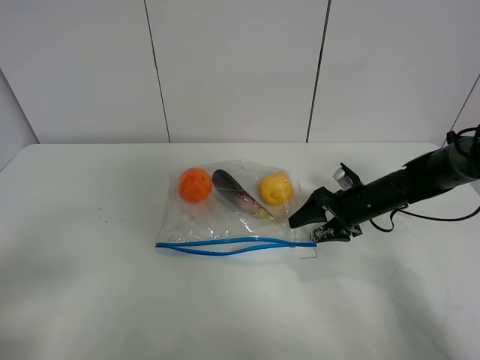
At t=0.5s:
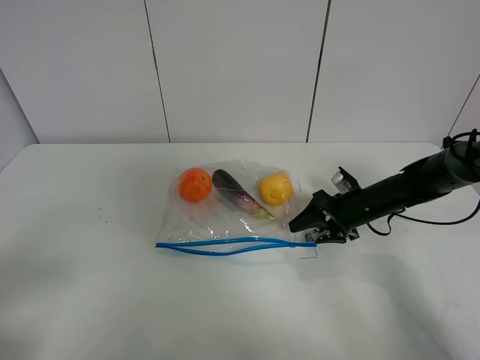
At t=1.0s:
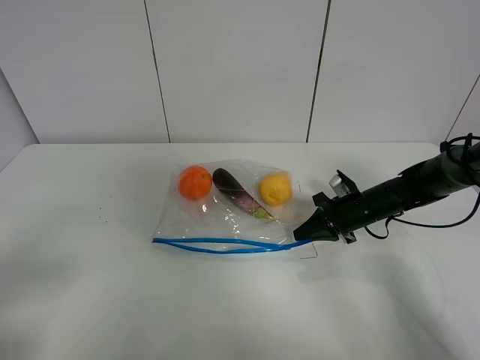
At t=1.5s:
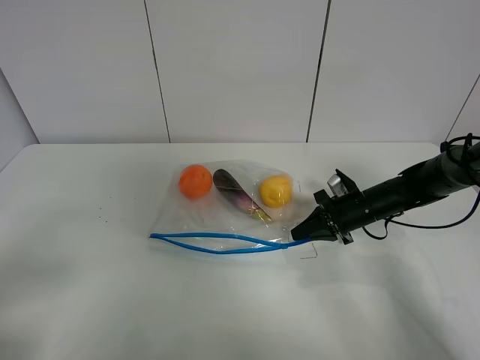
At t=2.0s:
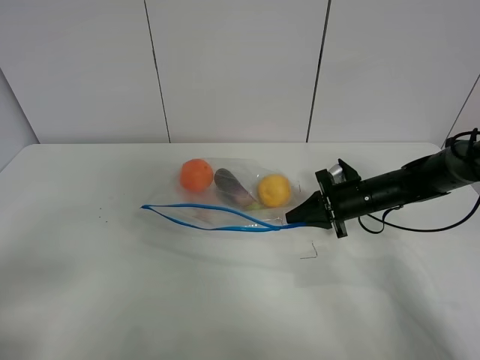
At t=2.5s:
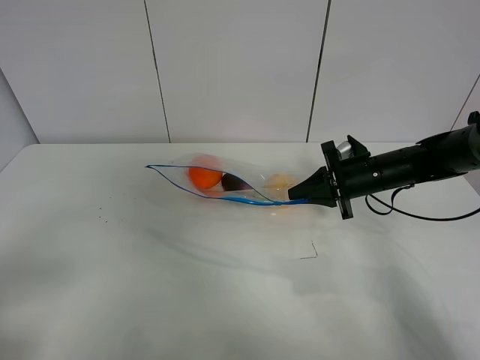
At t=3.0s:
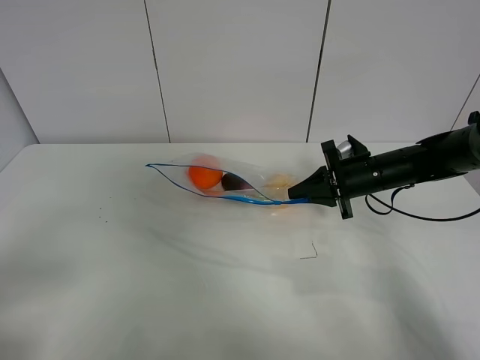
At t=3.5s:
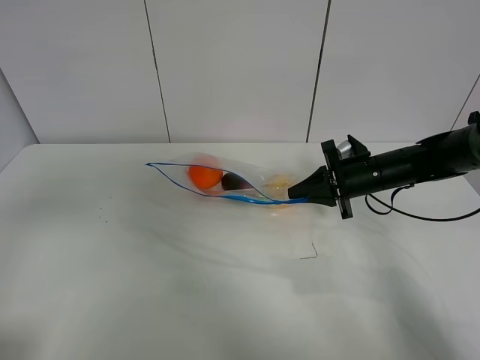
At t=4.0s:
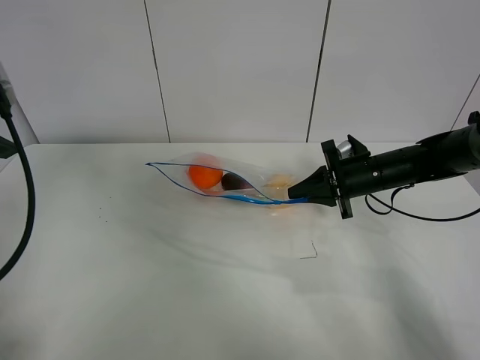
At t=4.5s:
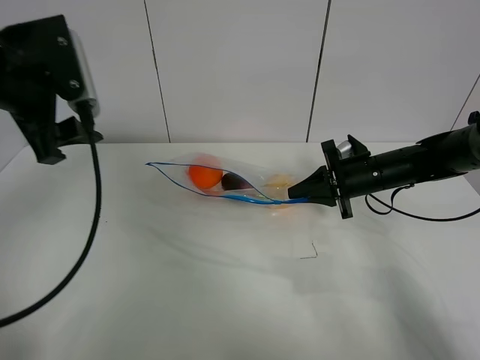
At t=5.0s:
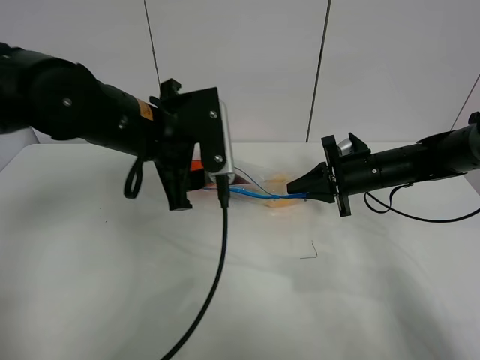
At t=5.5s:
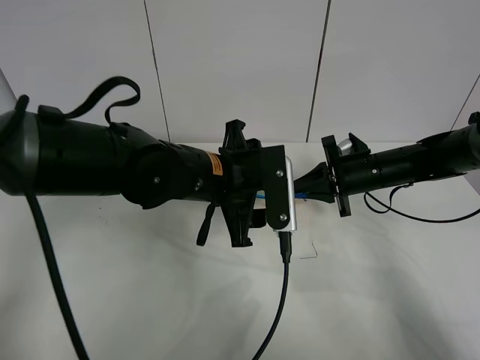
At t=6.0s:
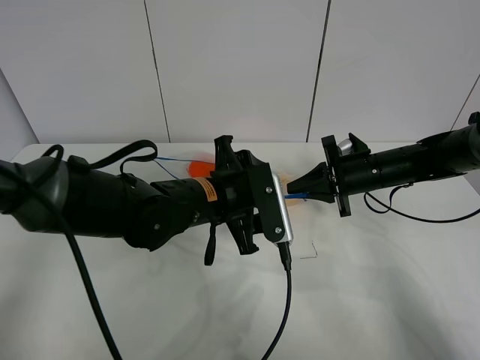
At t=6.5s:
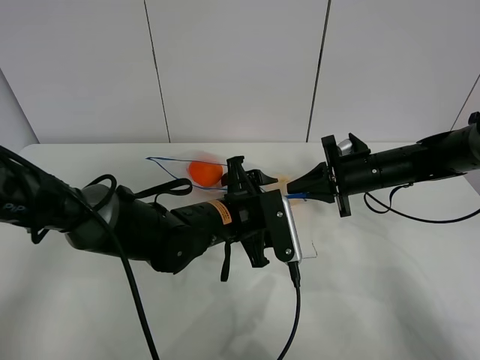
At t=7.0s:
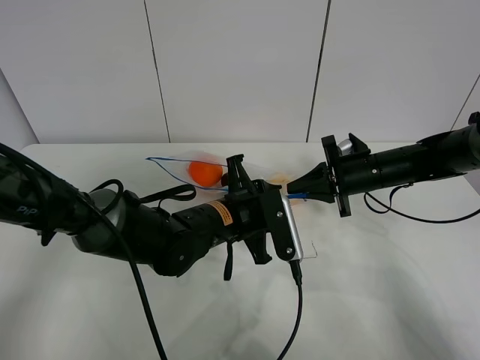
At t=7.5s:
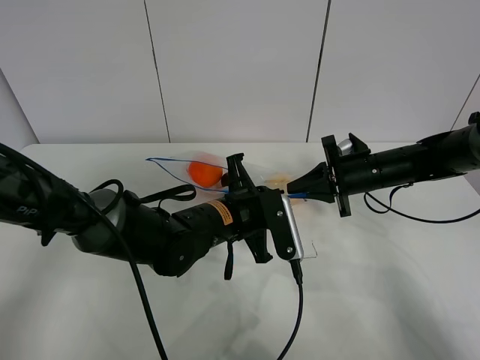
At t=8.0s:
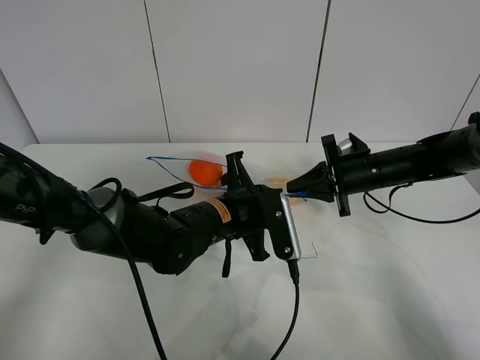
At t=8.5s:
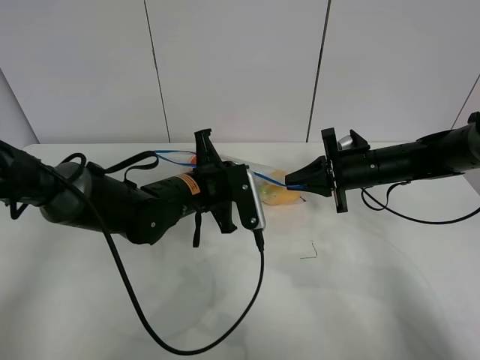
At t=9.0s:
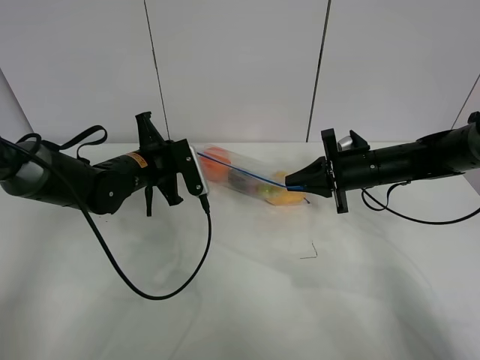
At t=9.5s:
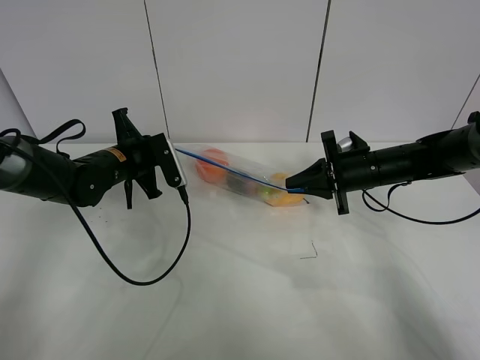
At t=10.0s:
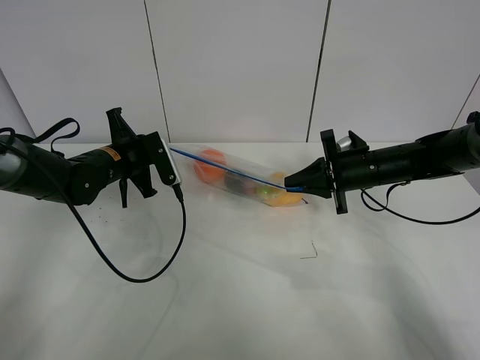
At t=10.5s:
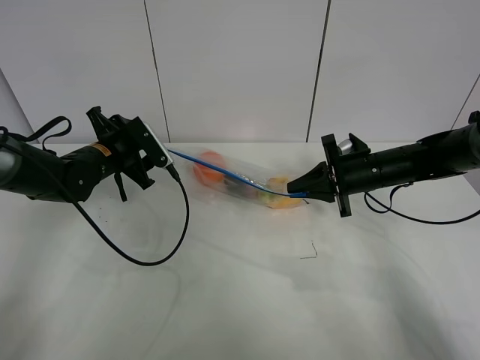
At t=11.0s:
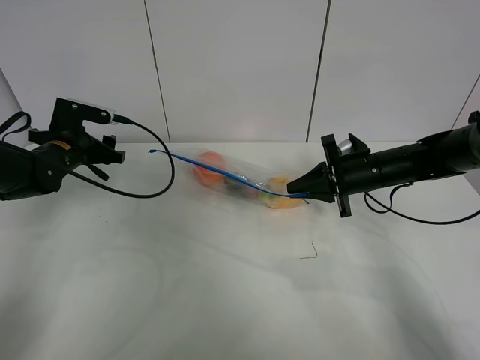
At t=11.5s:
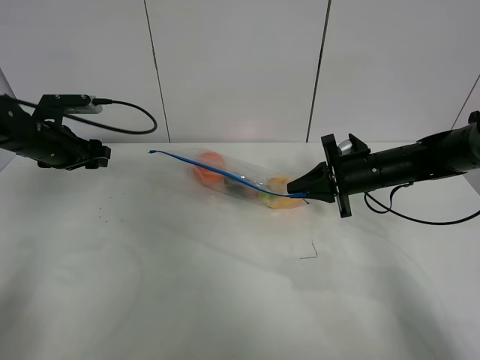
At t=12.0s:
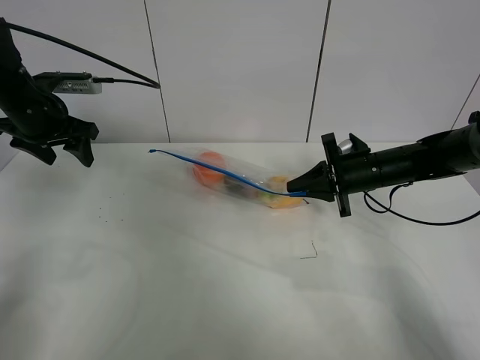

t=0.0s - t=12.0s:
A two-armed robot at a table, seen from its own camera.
Step, t=1.0s - t=2.5s: Lift the fruit bag with your right gripper.
Step, t=3.0s - t=10.5s: Pull the fruit bag with left gripper.
t=0.0s - t=2.0s: The right gripper closes up.
t=2.0s - t=4.0s: The left gripper goes about 25 cm forward and upward.
t=4.0s - t=6.0s: The left gripper is displaced to the right and downward by approximately 30 cm.
t=6.0s - t=8.0s: The left gripper closes.
t=8.0s - t=10.0s: The left gripper heads to the left and forward, covering about 20 cm.
t=10.0s - t=12.0s: The left gripper travels to the left and upward by some 15 cm, and opens its fingers.

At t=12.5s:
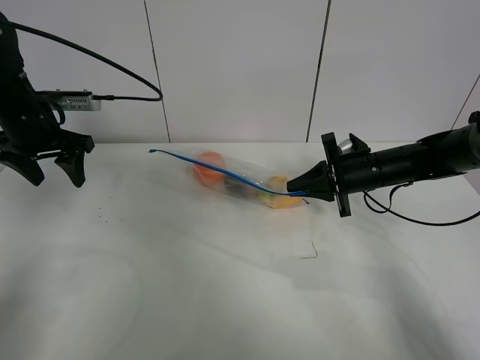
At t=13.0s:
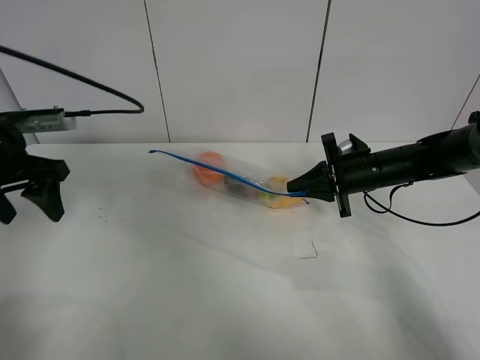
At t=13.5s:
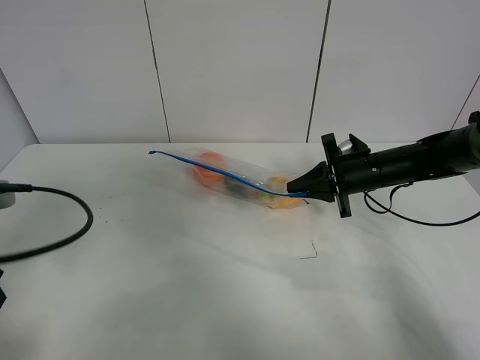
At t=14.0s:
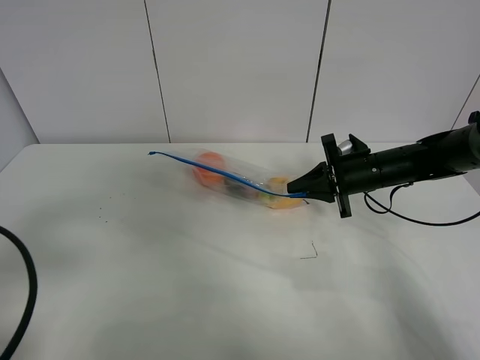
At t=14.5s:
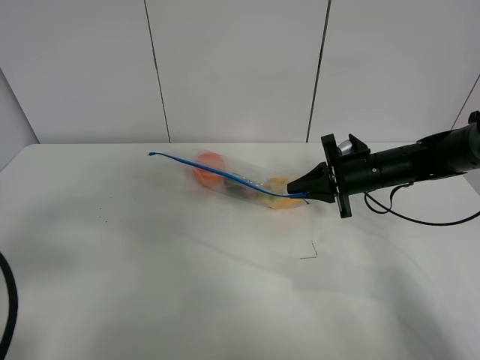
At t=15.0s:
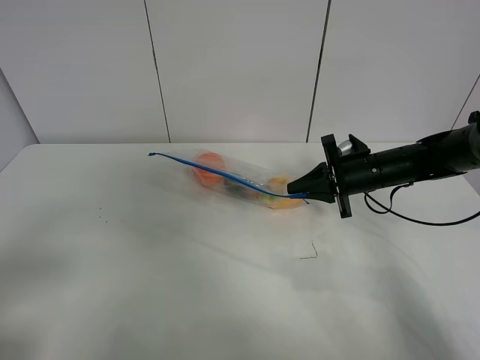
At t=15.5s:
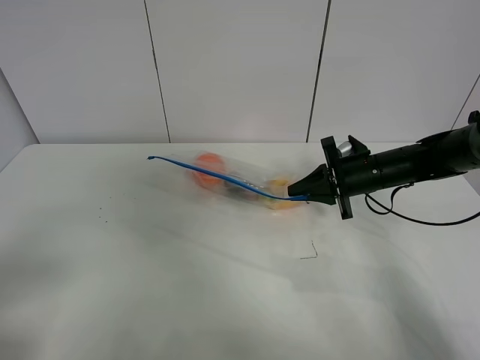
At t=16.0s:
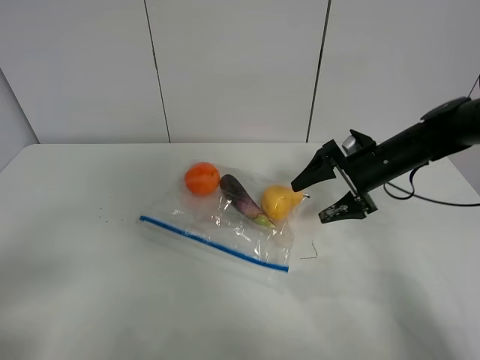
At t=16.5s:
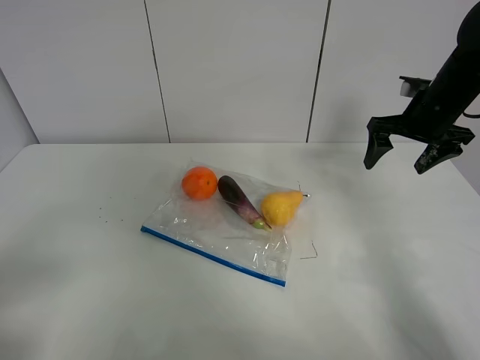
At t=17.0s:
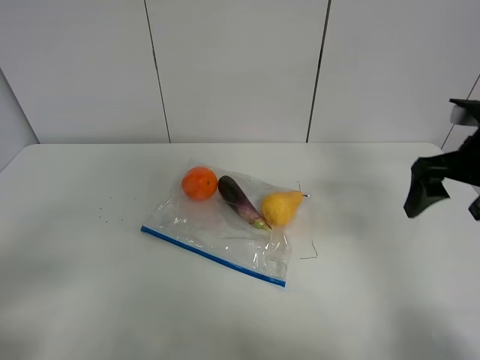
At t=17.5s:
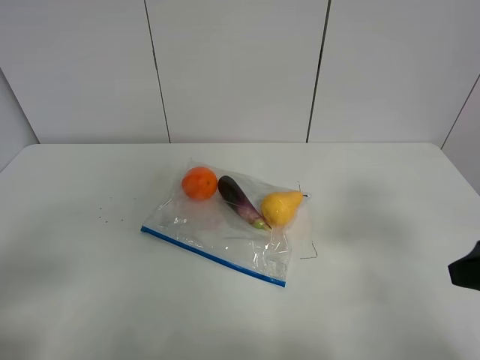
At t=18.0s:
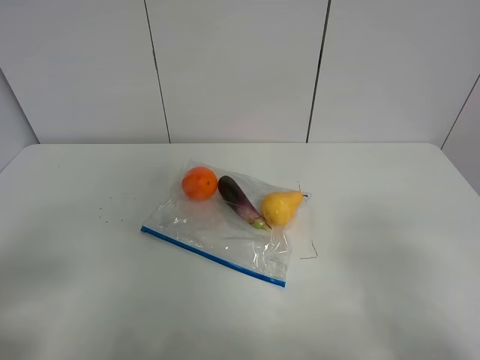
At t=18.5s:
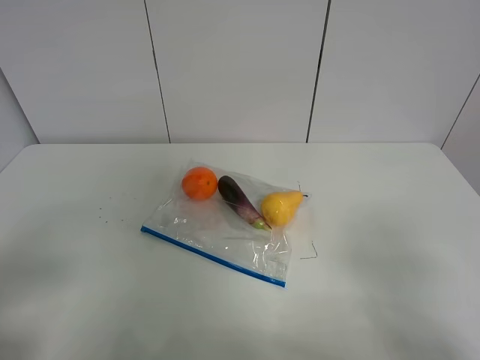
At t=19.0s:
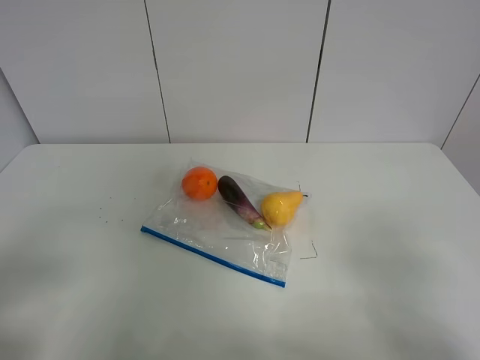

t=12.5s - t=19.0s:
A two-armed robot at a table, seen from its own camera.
t=12.5s - t=14.5s: The left gripper shifts roughly 30 cm backward.
t=14.5s - t=17.0s: The right gripper moves upward, backward and to the right, roughly 20 cm, and opens; the left gripper is displaced backward by roughly 5 cm.
t=17.0s - t=19.0s: The right gripper shifts approximately 25 cm backward.
